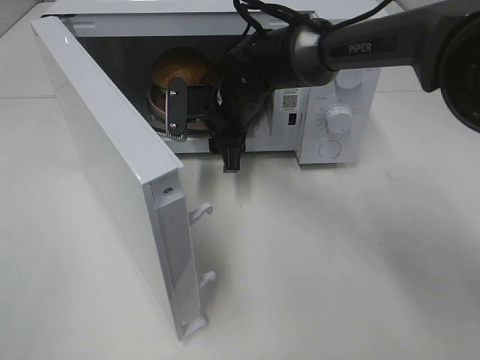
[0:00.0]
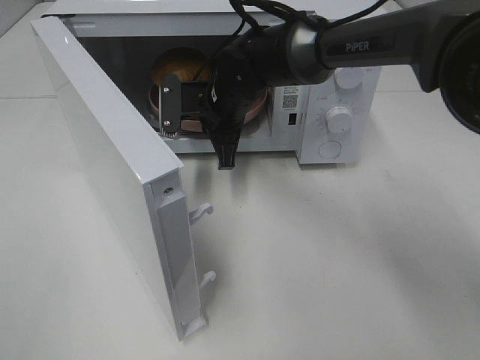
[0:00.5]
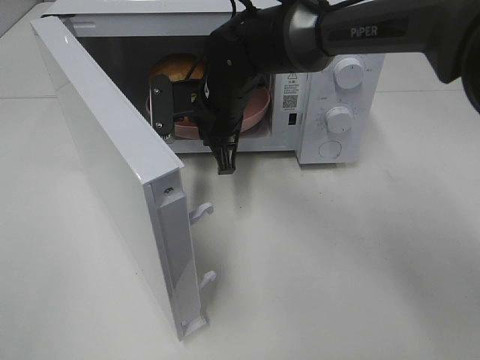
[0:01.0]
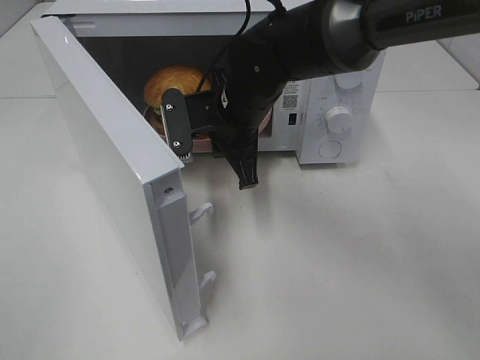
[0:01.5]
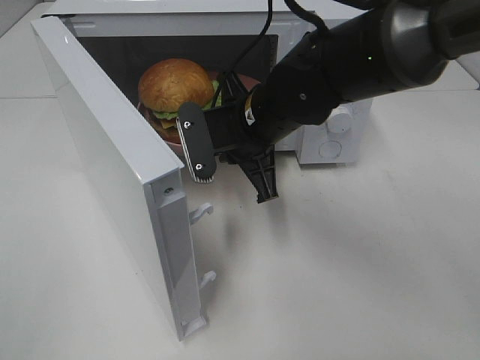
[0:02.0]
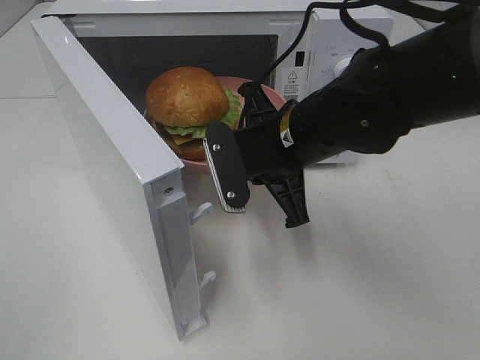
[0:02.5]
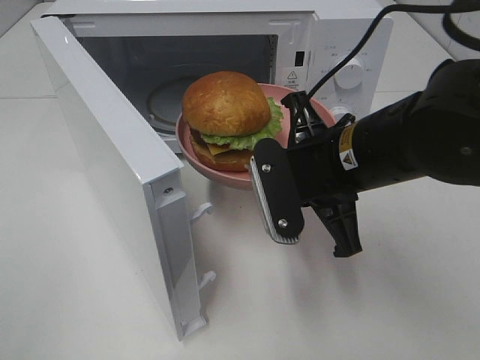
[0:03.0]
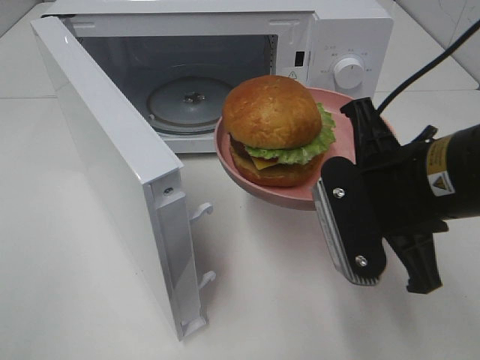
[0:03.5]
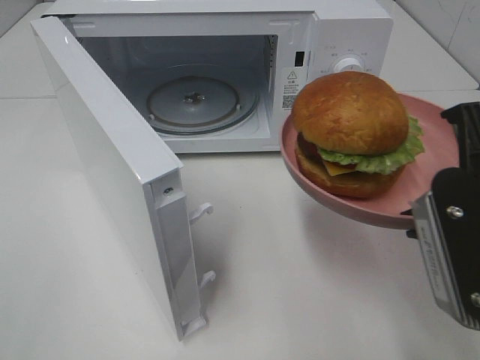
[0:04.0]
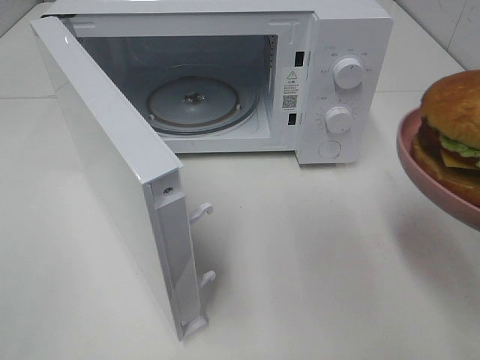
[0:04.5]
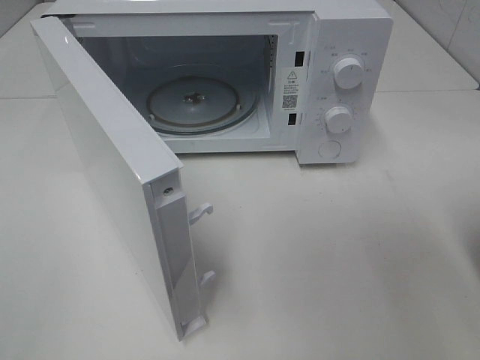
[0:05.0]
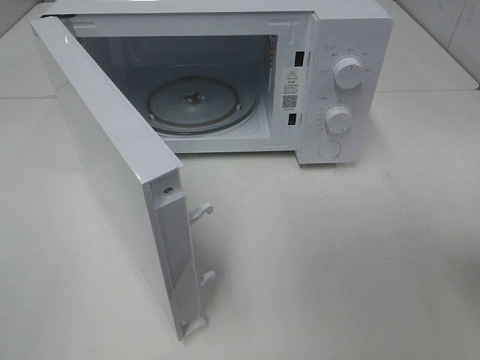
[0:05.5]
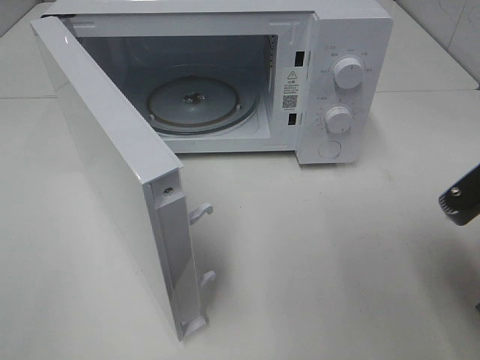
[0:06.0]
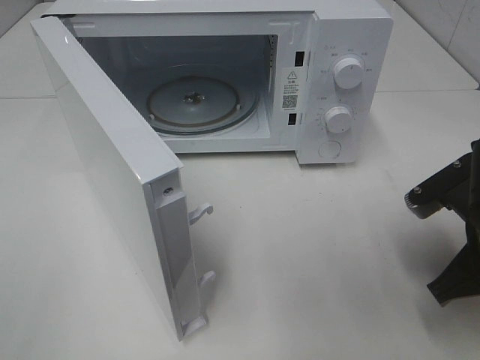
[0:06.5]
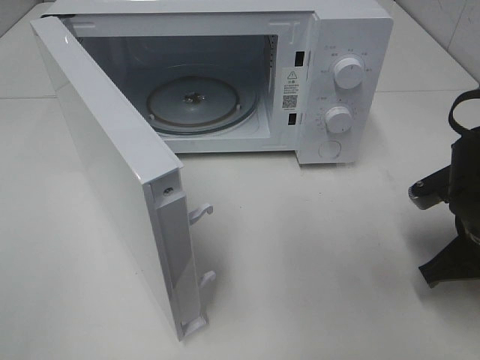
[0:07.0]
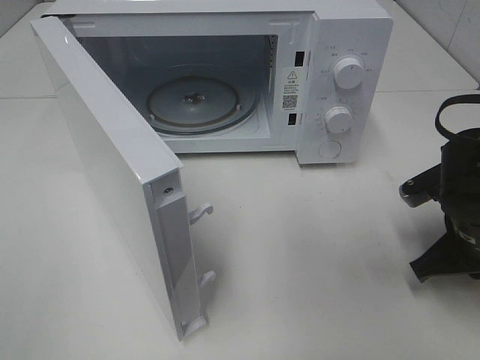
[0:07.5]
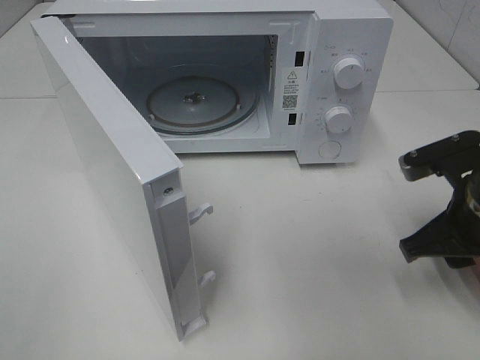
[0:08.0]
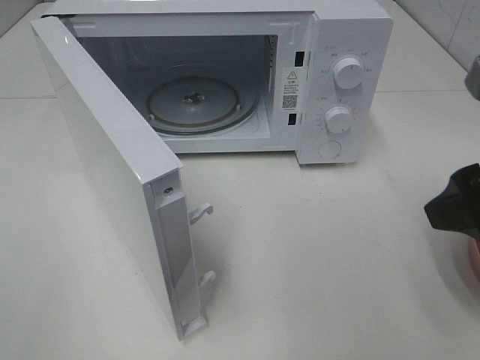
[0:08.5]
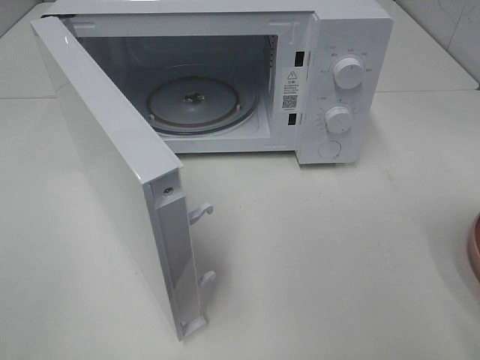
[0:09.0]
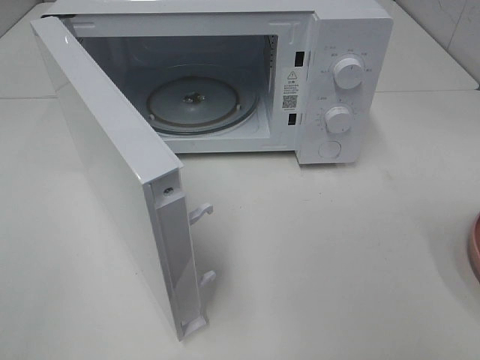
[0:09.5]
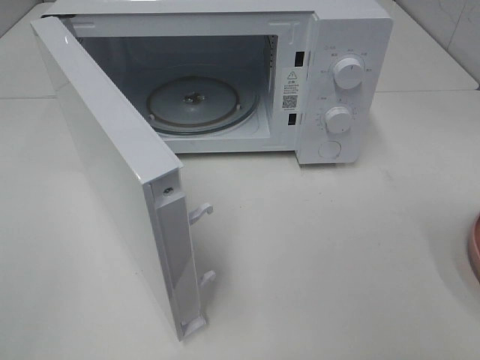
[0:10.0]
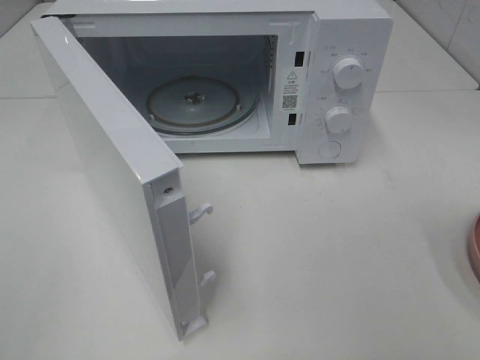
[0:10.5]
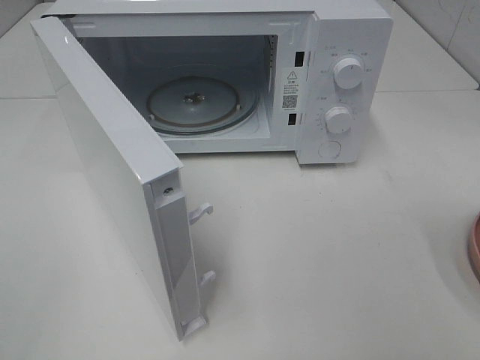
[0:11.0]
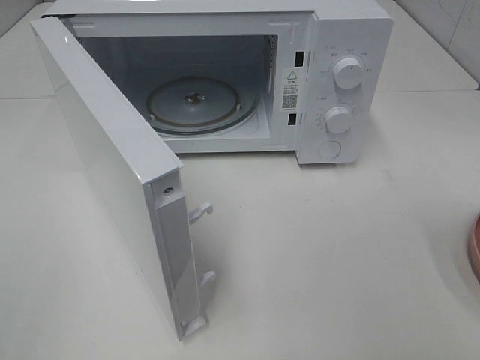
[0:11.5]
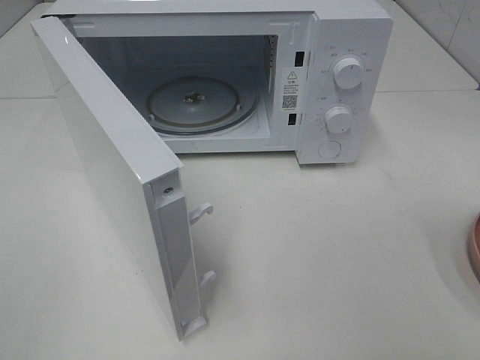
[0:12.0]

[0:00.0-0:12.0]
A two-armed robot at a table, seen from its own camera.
Task of the whole recording: Heat the burger.
Step, 0.5 to 7.0 s: Right hand: place the plate on the table.
0.0 to 2.0 s: The right gripper heads backward, covering about 10 cm, and closes its fingers.
2.0 to 4.0 s: The right gripper travels backward and to the right by approximately 25 cm.
4.0 to 6.0 s: The right gripper moves downward, approximately 5 cm.
6.0 to 8.0 s: The right gripper shifts roughly 5 cm forward, and opens its fingers.
8.0 to 10.0 s: The right gripper travels backward and upward by roughly 25 cm.
10.0 to 12.0 s: Neither gripper changes place.

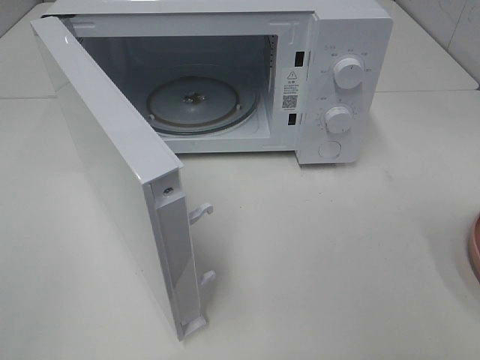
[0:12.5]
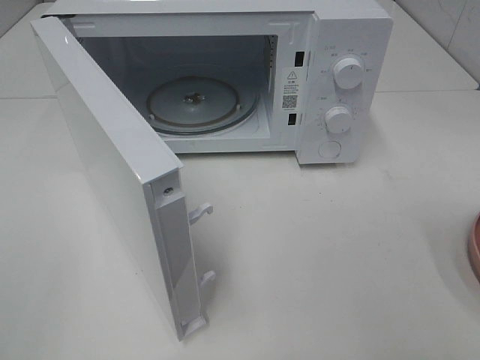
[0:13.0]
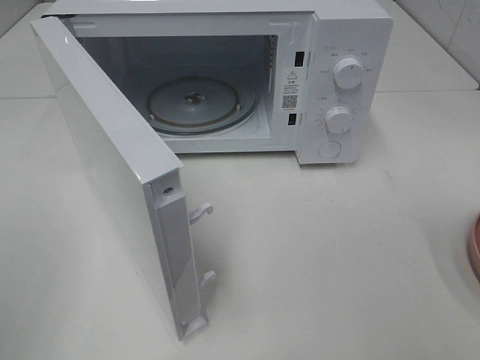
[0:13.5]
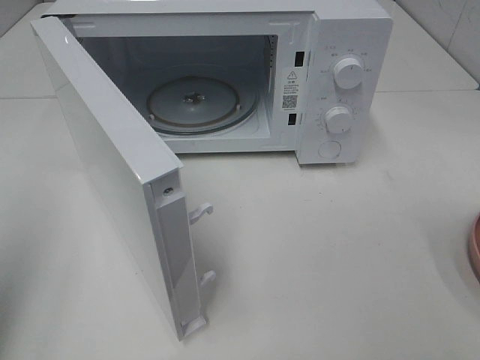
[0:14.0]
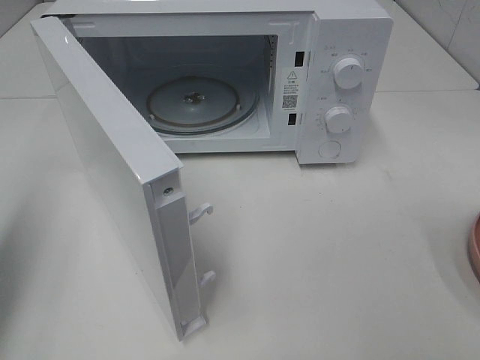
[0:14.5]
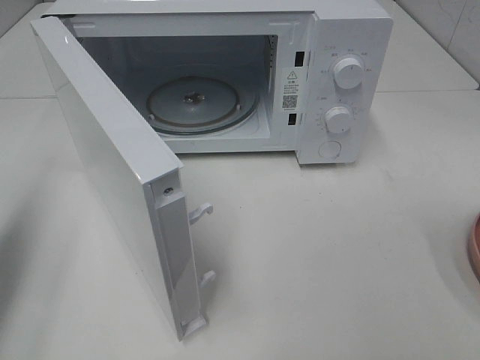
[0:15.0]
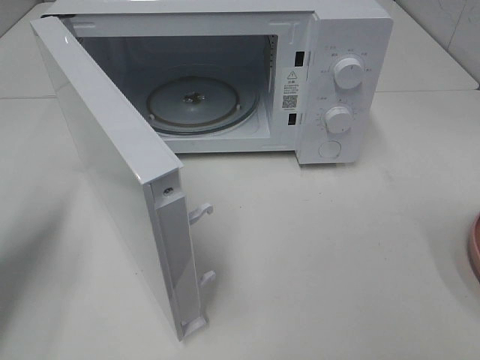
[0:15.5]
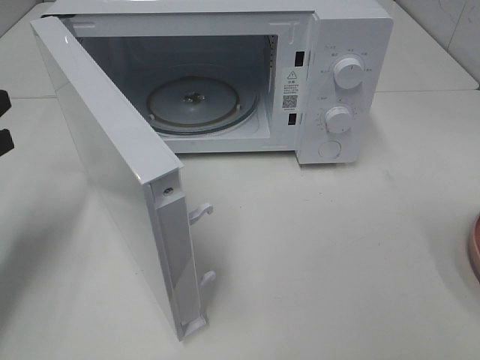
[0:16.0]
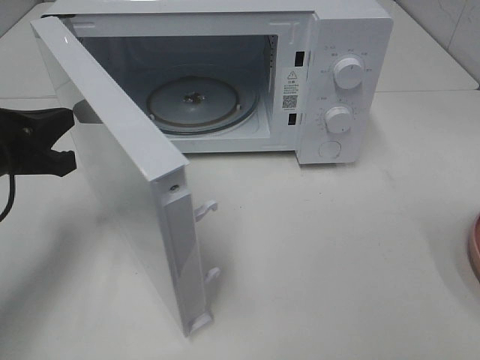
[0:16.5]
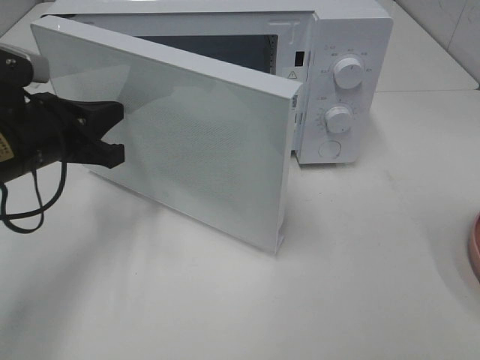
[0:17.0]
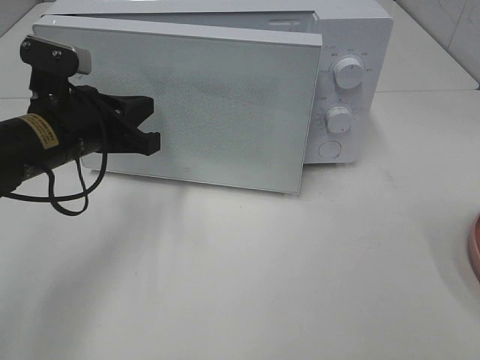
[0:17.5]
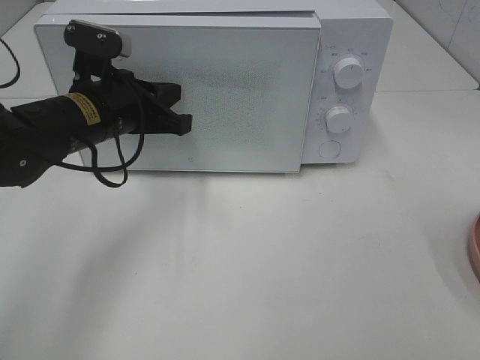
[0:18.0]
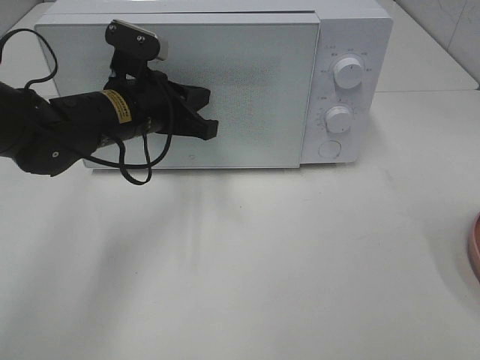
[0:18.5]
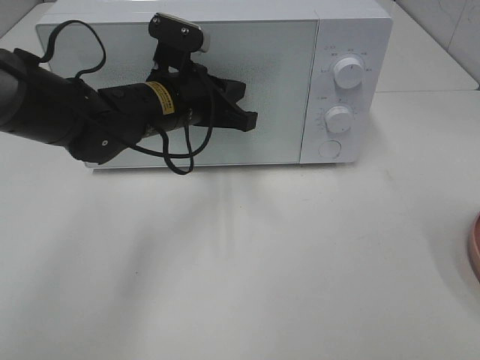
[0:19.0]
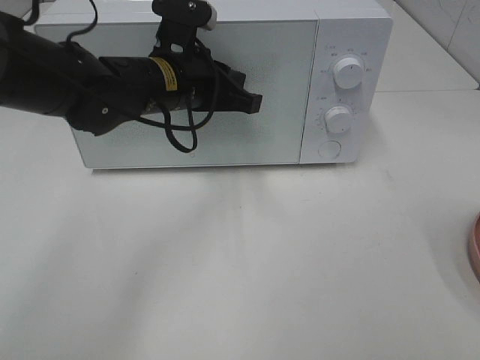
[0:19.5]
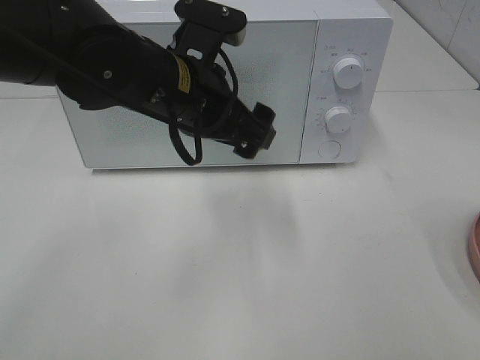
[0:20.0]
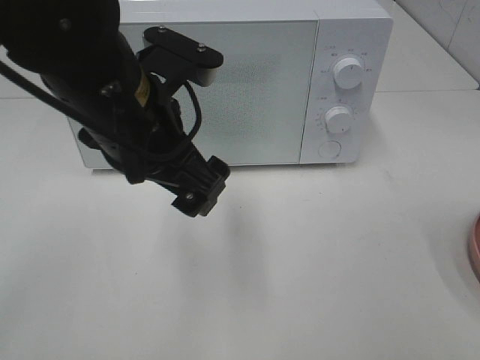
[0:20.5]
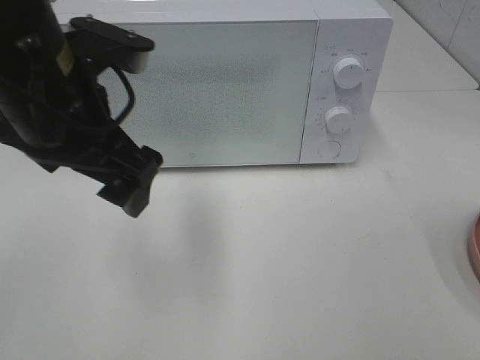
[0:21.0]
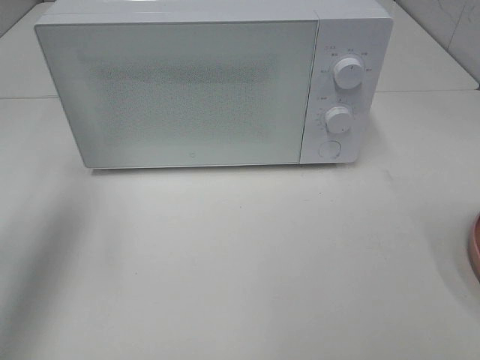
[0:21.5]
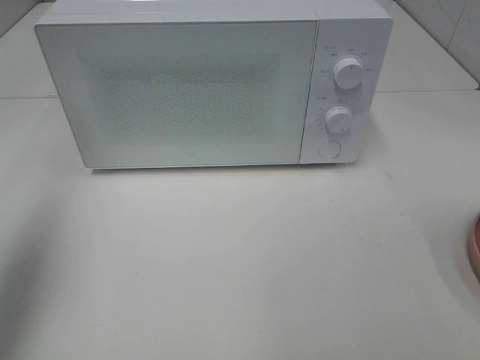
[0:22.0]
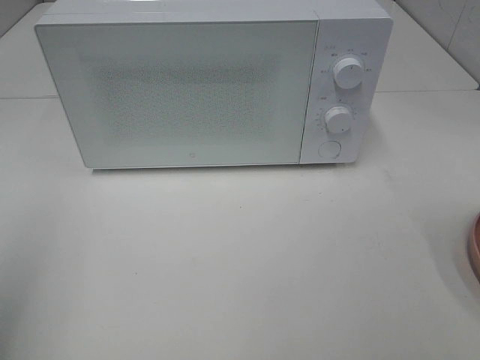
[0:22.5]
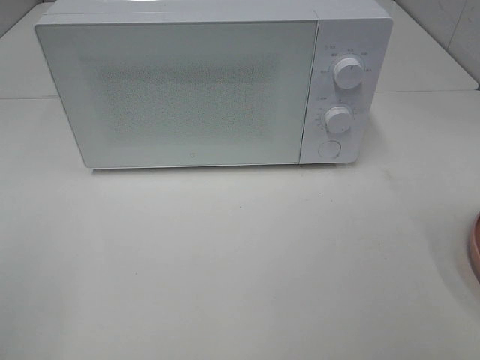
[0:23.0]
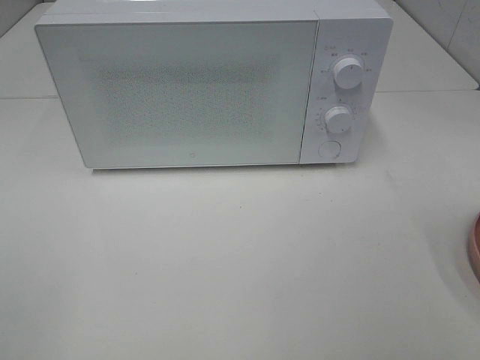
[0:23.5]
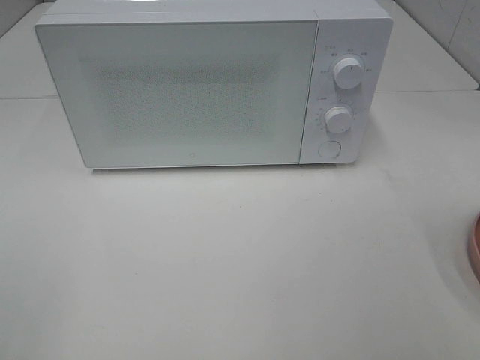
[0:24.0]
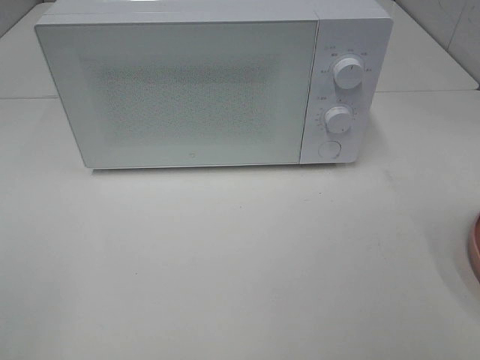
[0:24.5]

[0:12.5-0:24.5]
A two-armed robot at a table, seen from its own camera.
Task of the whole recording: Heat the burger.
Step, 12.5 to 19.5 s: Left hand: close the microwave door.
12.5 to 14.5 s: The left gripper travels forward by about 20 cm, and closes.
14.5 to 16.5 s: The left gripper goes some 20 cm downward, to the right and forward.
16.5 to 18.5 s: The left gripper travels to the right and forward by approximately 15 cm.
18.5 to 20.5 s: The left gripper moves backward and upward, roughly 15 cm, and opens its fingers.
20.5 to 22.5 s: The left gripper moves to the left and backward, some 30 cm.

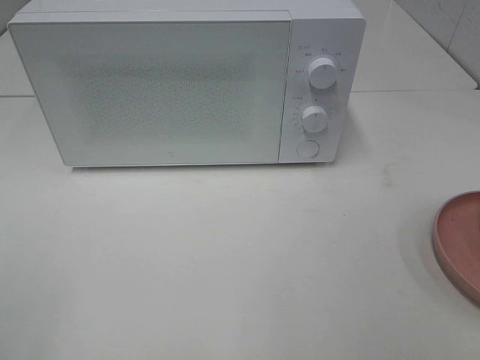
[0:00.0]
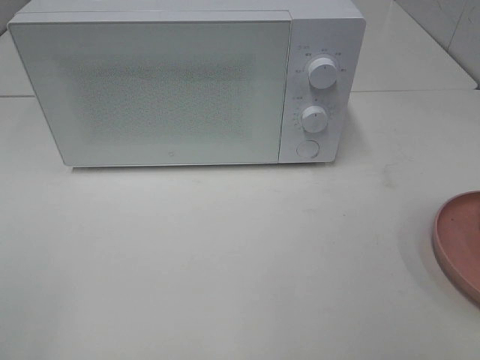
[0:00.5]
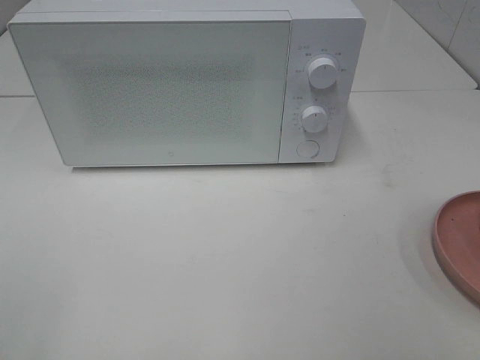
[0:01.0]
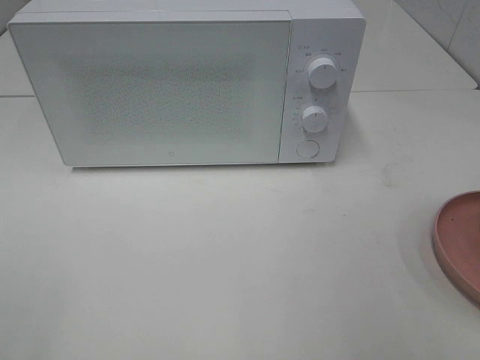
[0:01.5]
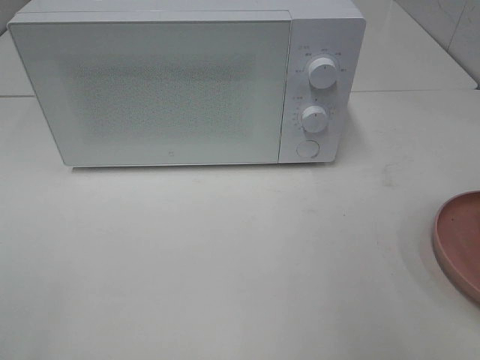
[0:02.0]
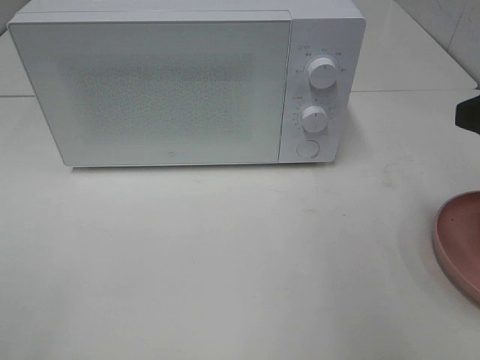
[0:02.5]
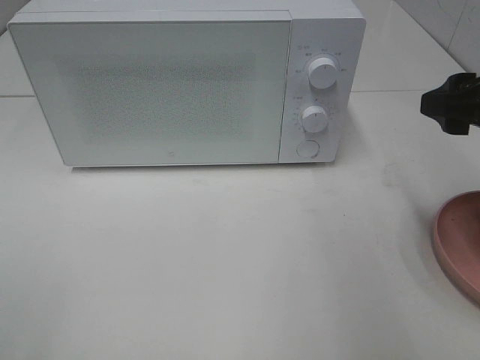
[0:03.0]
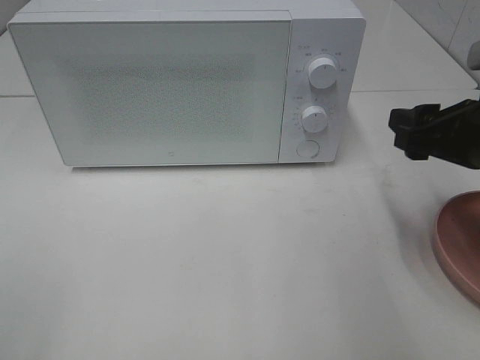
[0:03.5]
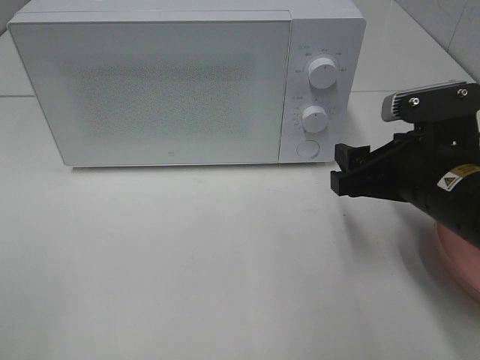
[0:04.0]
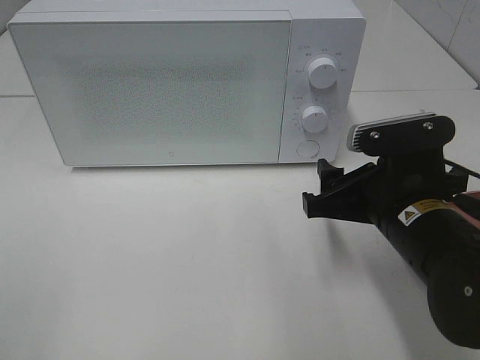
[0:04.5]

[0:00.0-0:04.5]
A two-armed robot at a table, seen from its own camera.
Task of the whole recording: Heat the burger.
2.0 to 4.5 s: The right gripper moves downward, to the left and forward, some 20 cm.
